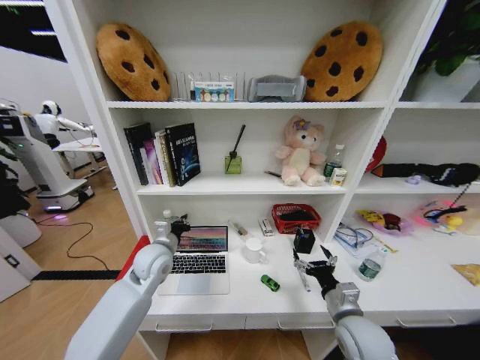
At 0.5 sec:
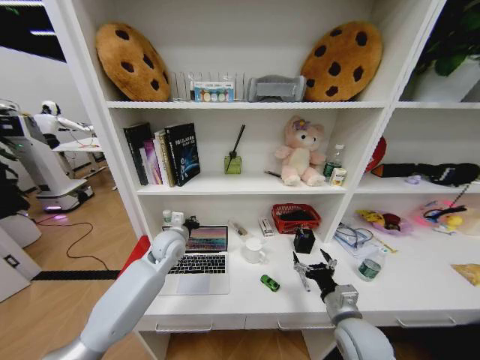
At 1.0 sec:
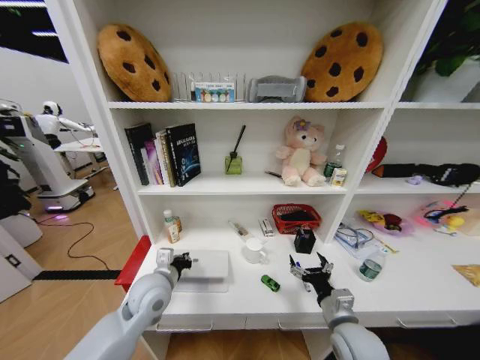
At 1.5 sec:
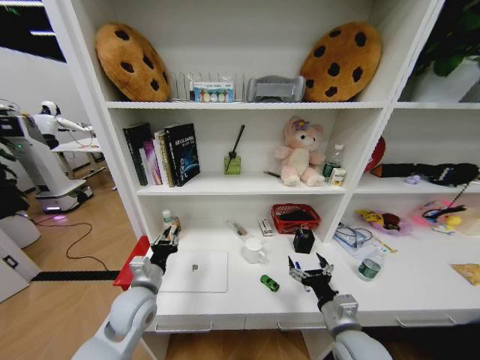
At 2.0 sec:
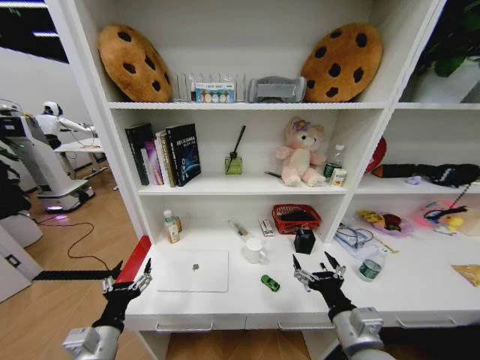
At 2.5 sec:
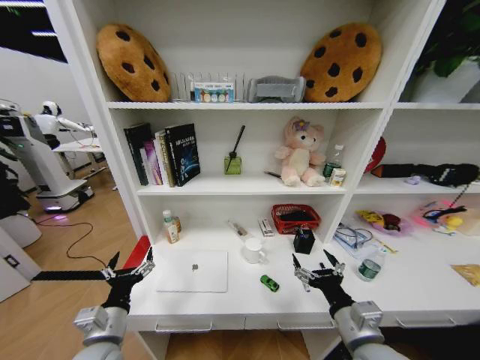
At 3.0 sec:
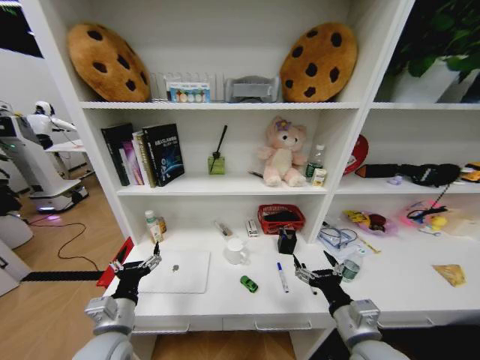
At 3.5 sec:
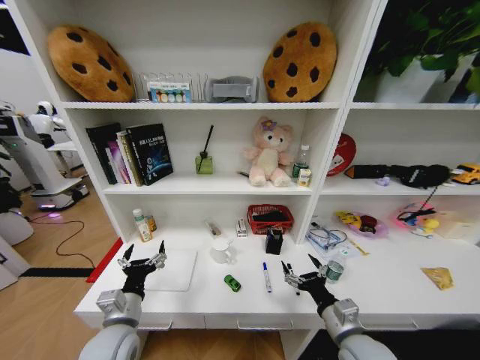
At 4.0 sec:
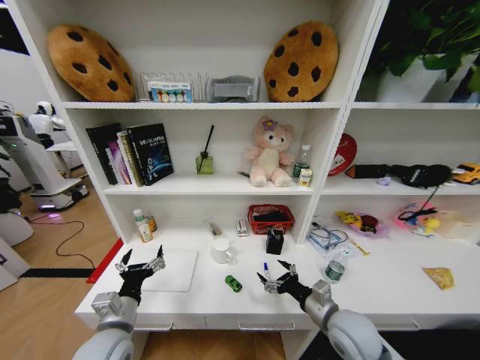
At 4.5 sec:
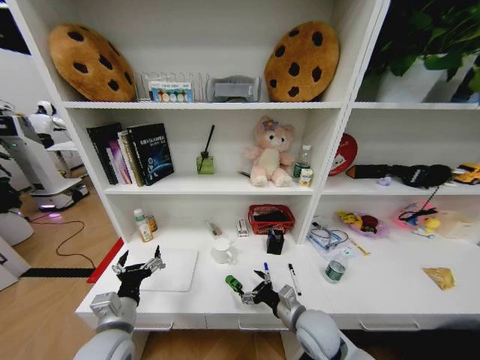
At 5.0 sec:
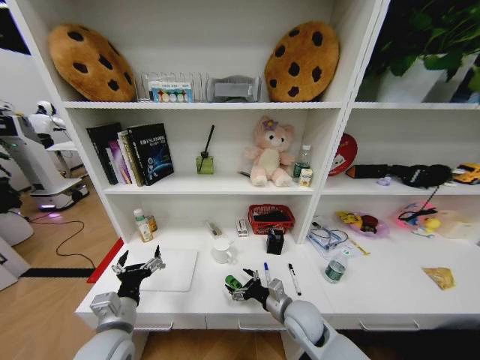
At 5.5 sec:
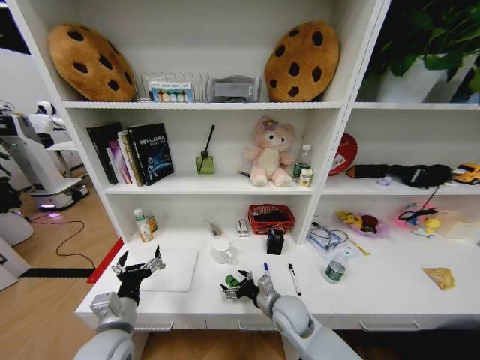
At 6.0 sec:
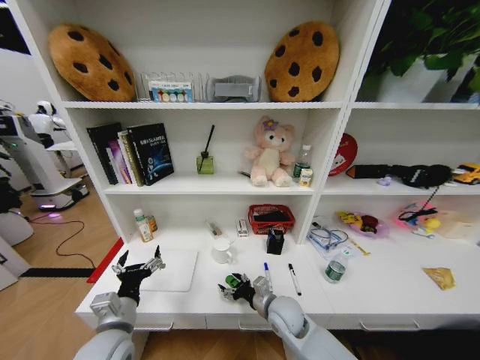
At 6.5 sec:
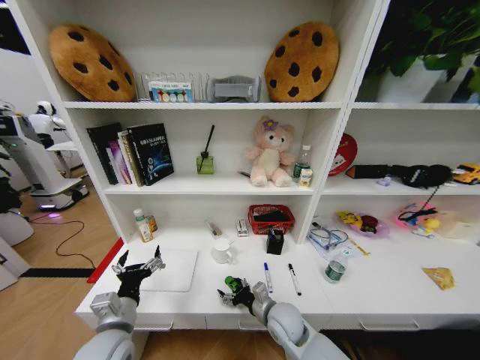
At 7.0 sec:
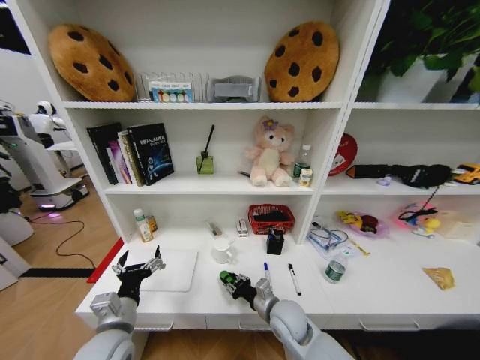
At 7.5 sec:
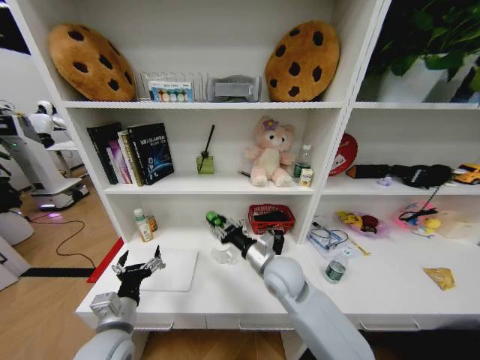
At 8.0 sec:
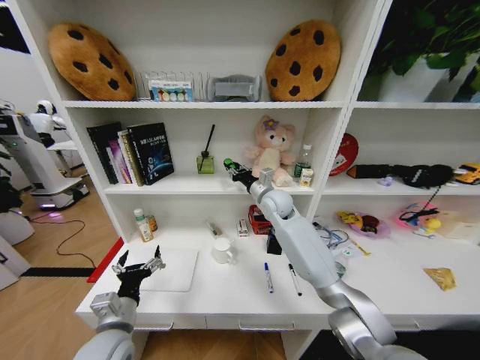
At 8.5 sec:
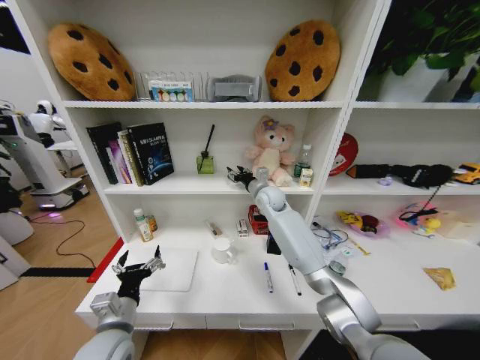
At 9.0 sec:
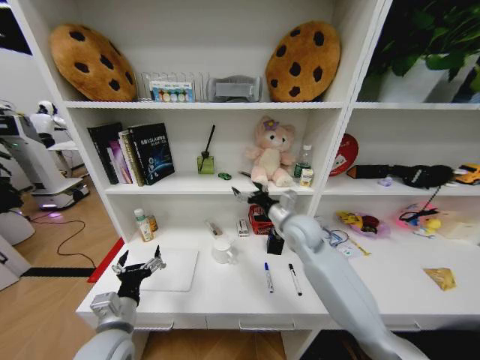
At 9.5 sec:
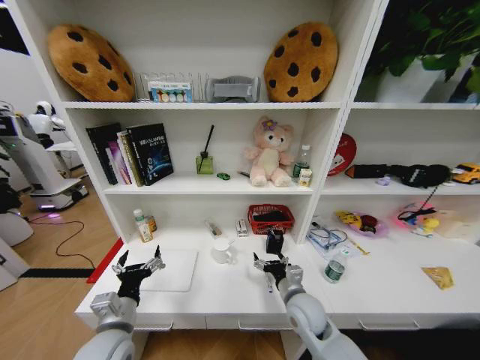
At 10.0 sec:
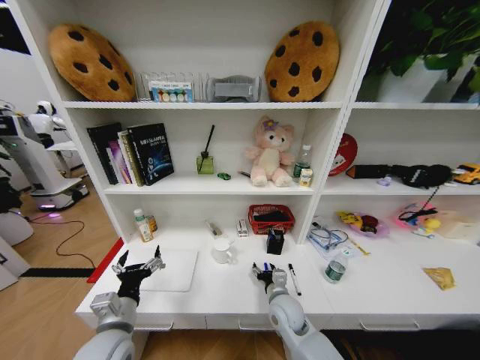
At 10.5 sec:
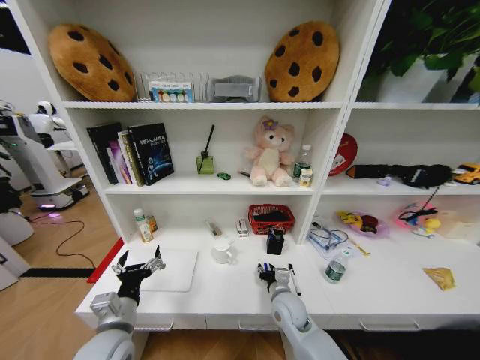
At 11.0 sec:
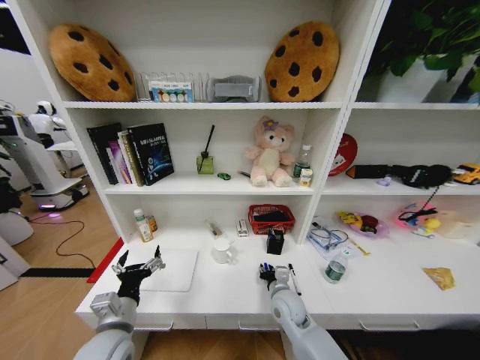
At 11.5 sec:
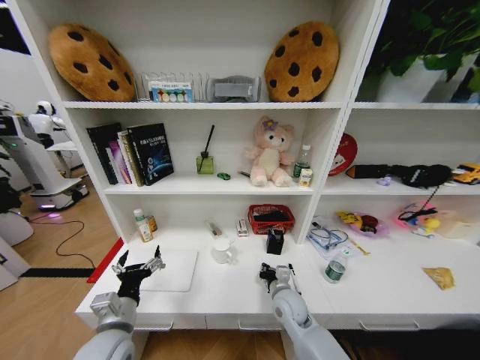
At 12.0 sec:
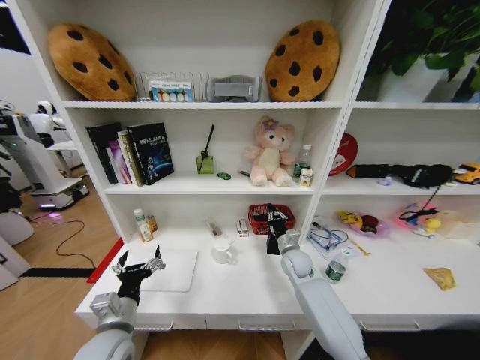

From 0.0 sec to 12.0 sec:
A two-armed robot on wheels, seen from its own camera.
Task of the whole recording: Organize the objects on the table.
From 0.0 sec to 2.0 sec: The left gripper travels backward by roughly 25 cm, and opens its fingers; the right gripper heads backward, covering roughly 5 cm.
From 2.0 sec to 4.0 sec: The two grippers go about 5 cm forward.
From 4.0 sec to 6.0 sec: The right gripper shifts approximately 15 cm to the left, downward and forward.
From 6.0 sec to 8.0 sec: The right gripper moves upward and forward, roughly 35 cm, and closes up.
From 8.0 sec to 10.0 sec: The right gripper travels downward and backward by roughly 30 cm, and opens.
From 10.0 sec to 12.0 sec: The right gripper travels forward and to the right by roughly 15 cm, and closes its fingers.

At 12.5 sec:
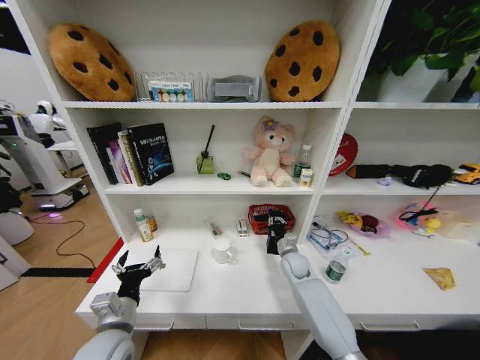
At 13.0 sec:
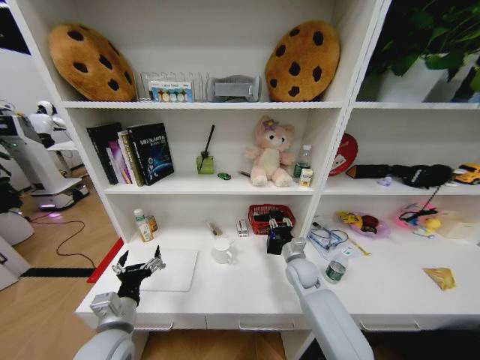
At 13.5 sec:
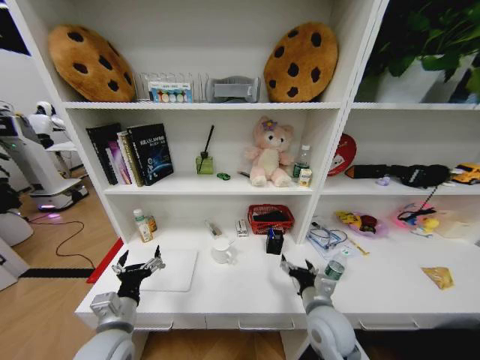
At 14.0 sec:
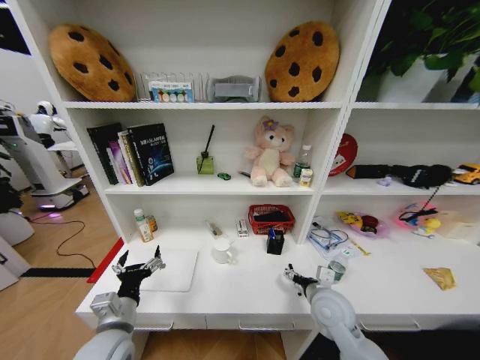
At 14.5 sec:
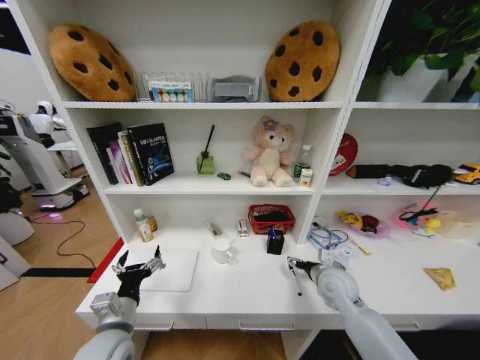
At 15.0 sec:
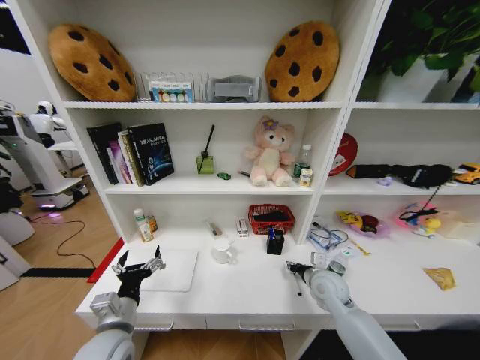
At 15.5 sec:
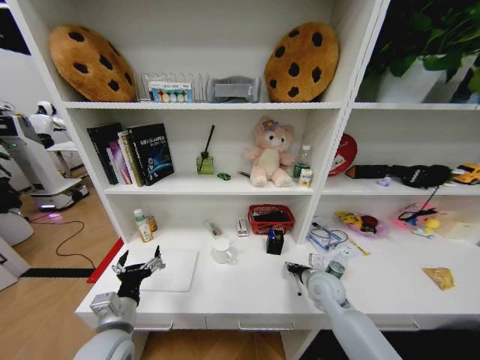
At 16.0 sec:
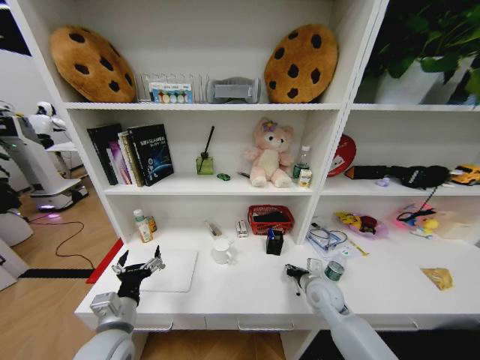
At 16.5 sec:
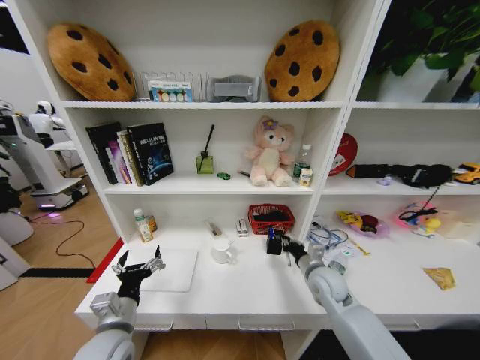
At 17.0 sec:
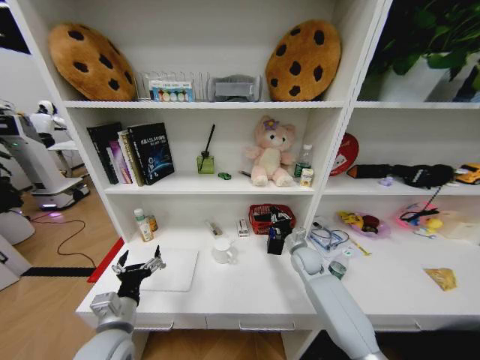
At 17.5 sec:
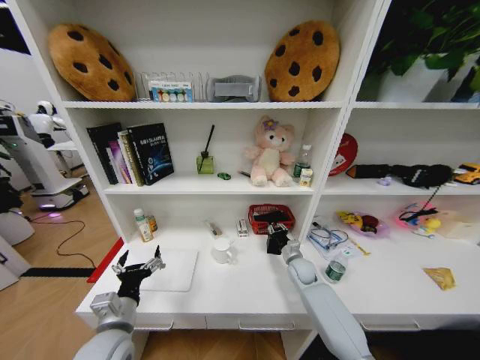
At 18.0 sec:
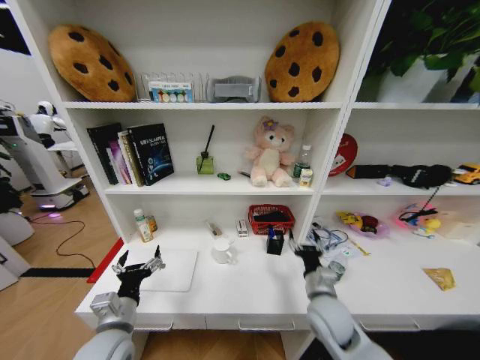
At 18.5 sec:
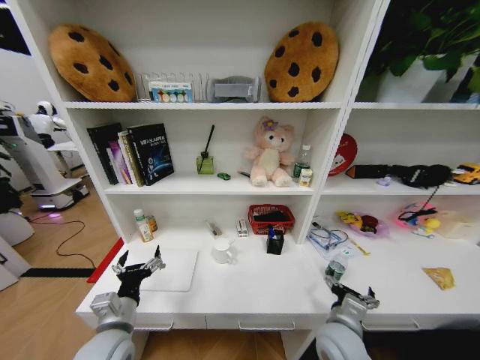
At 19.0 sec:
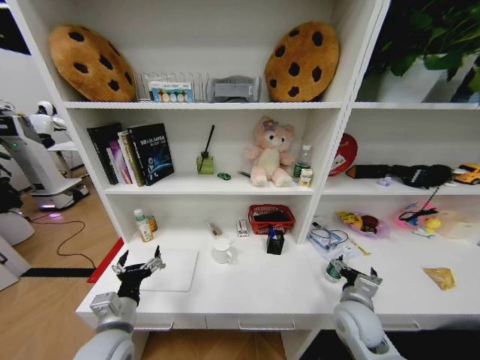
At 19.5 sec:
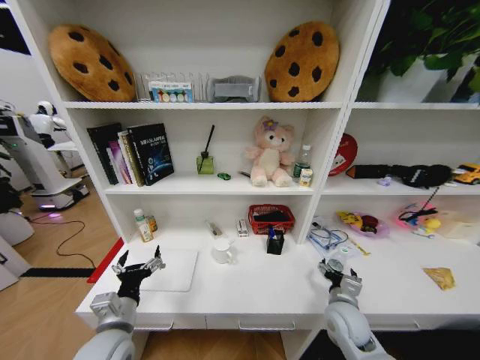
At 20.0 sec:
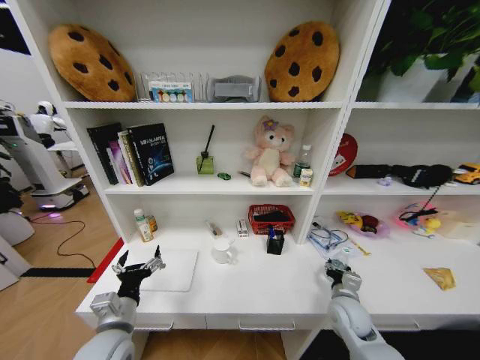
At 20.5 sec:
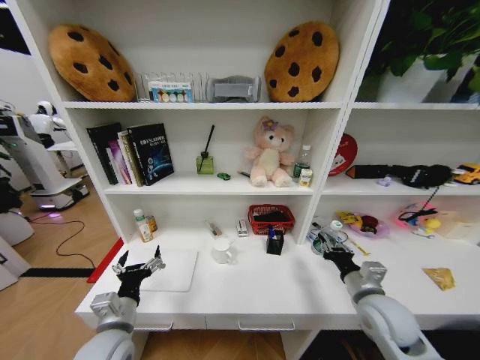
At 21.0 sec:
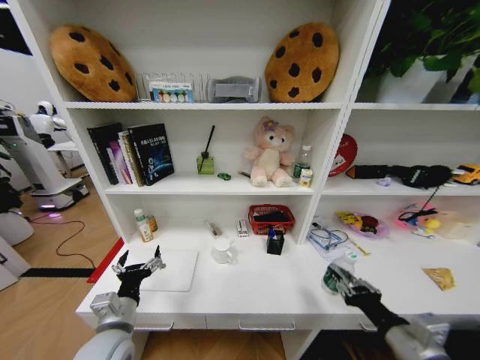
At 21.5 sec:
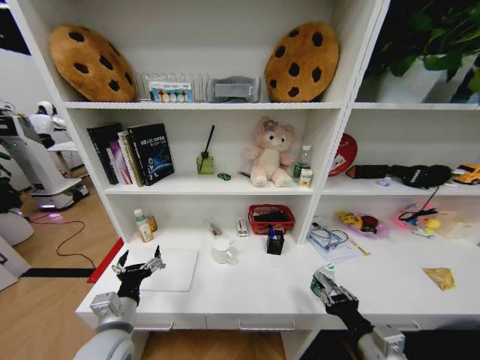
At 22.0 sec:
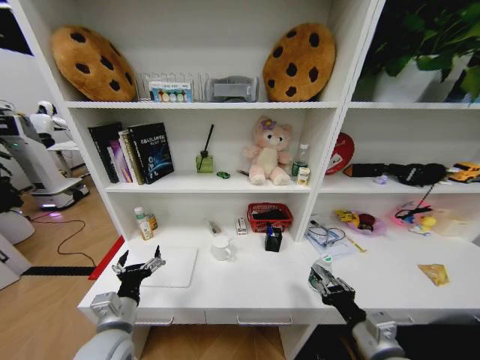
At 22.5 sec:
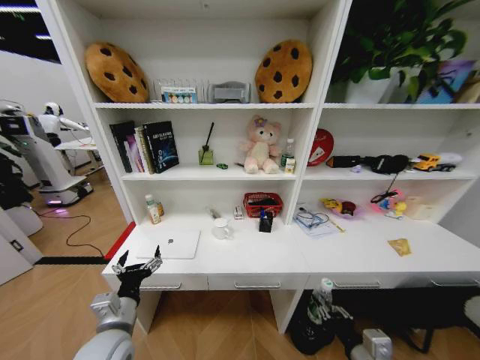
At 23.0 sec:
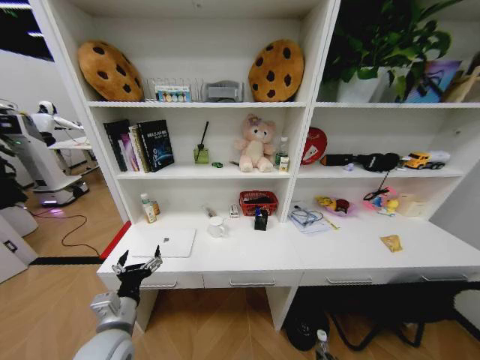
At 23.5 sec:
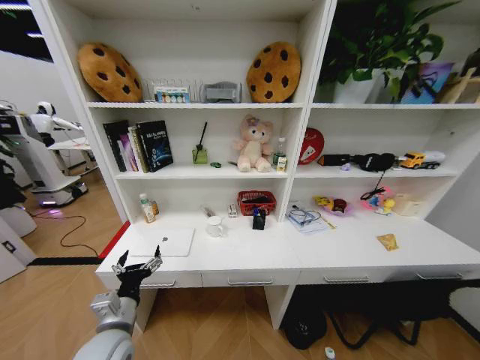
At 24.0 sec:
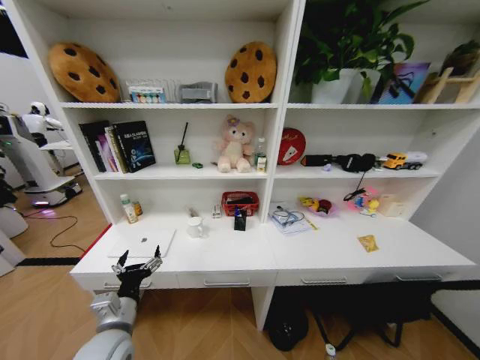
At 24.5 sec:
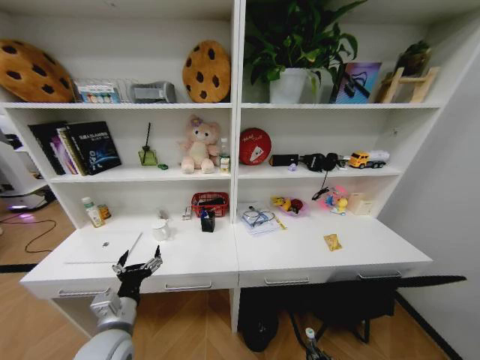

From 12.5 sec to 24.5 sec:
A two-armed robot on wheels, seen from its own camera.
Task of the whole recording: Organize the objects on the table.
From 12.5 sec to 14.5 sec: The right gripper heads backward, upward and to the right, covering approximately 15 cm, and opens its fingers.
From 14.5 sec to 16.5 sec: The right gripper closes.
From 16.5 sec to 18.5 sec: The right gripper travels backward by about 15 cm, and opens.
From 18.5 sec to 20.5 sec: The right gripper is displaced to the right and upward by approximately 10 cm, and closes up.
From 20.5 sec to 22.5 sec: The right gripper travels backward by roughly 10 cm.
From 22.5 sec to 24.5 sec: The right gripper shifts approximately 25 cm downward.

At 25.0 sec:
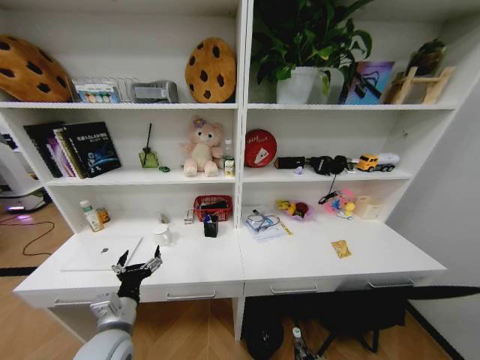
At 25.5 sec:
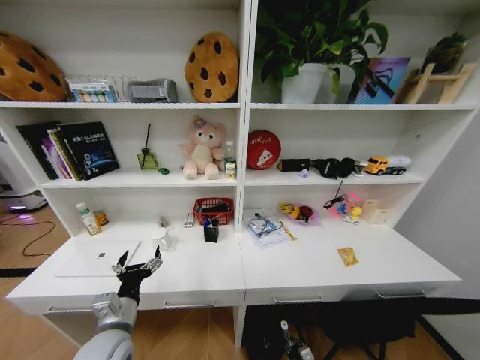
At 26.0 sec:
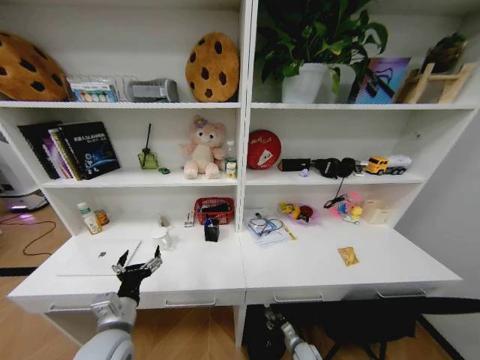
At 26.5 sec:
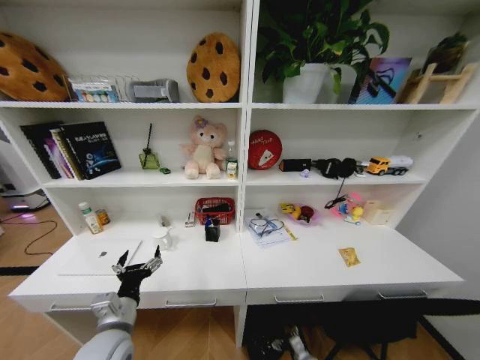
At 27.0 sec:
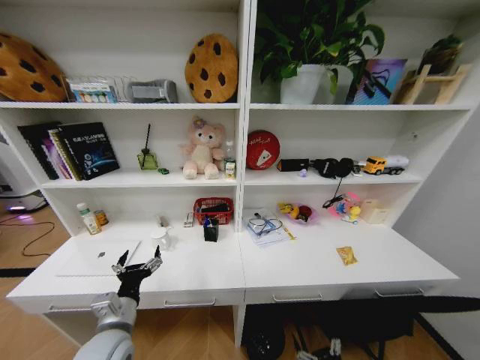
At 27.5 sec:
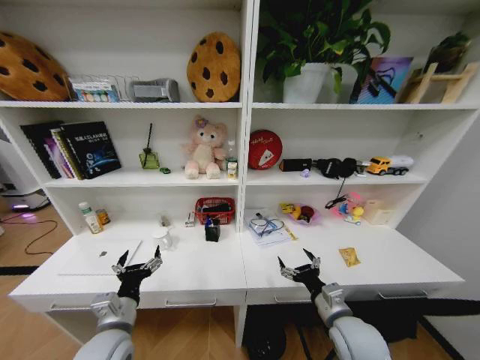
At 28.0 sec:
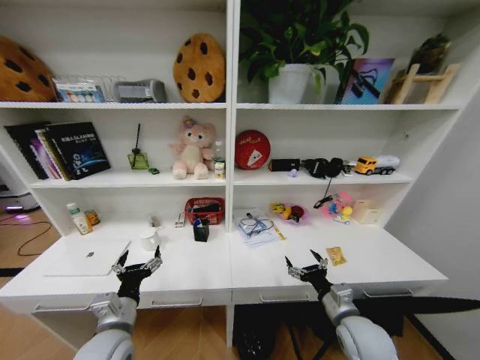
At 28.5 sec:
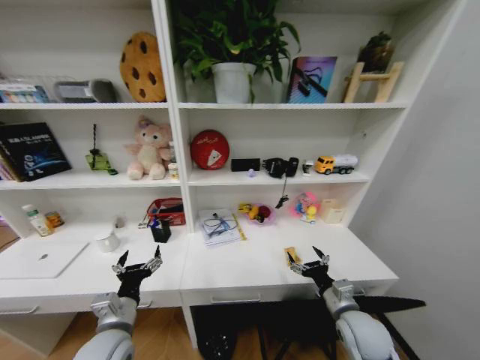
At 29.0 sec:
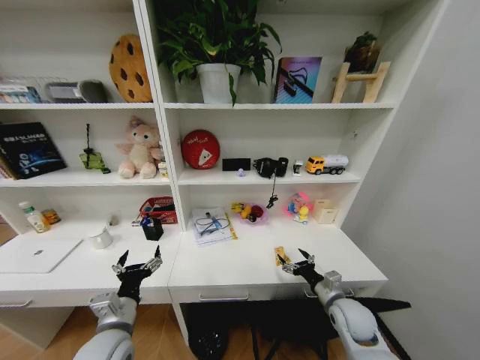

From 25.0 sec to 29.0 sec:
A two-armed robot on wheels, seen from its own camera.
Task of the whole recording: Organize the objects on the table.
From 25.0 sec to 27.0 sec: The right gripper shifts some 15 cm upward and backward, and opens up.
From 27.0 sec to 29.0 sec: The right gripper heads forward, covering roughly 25 cm.
